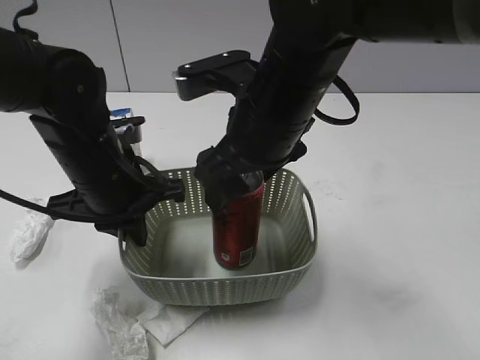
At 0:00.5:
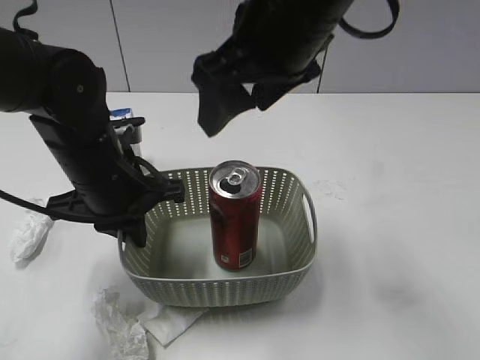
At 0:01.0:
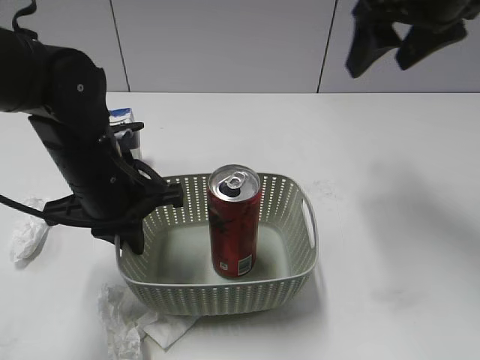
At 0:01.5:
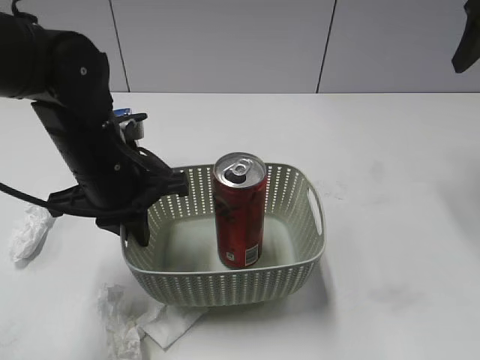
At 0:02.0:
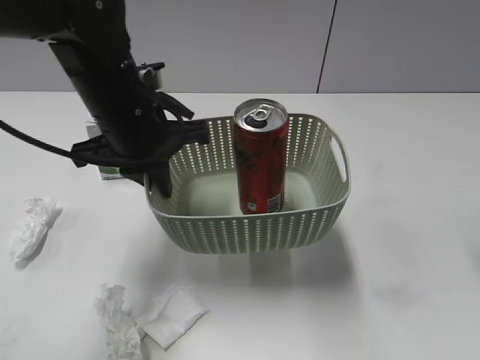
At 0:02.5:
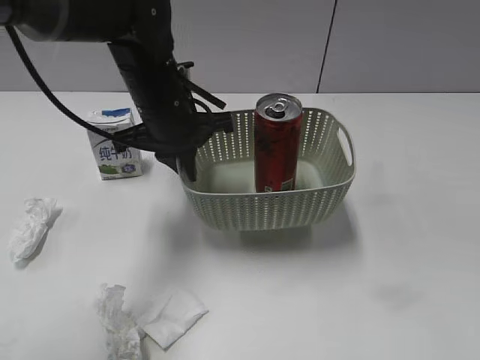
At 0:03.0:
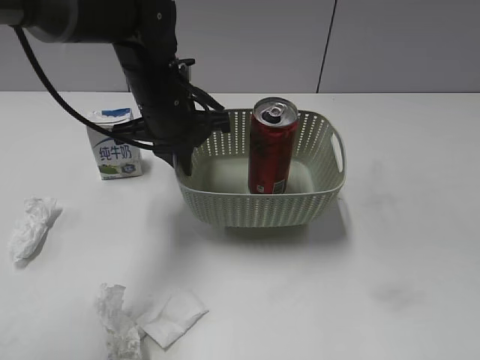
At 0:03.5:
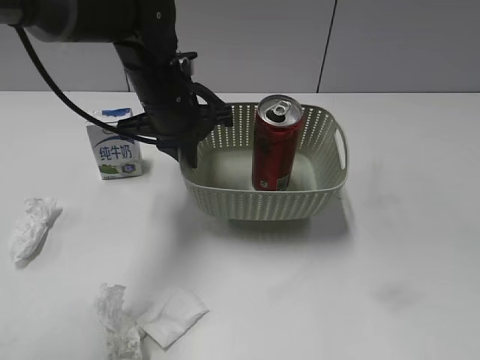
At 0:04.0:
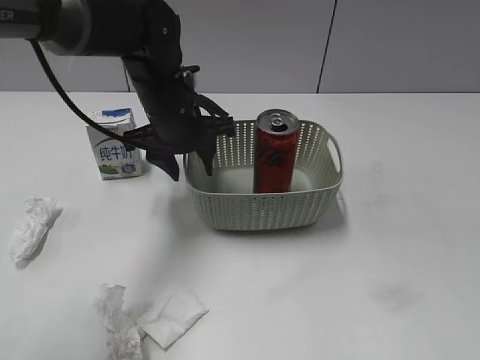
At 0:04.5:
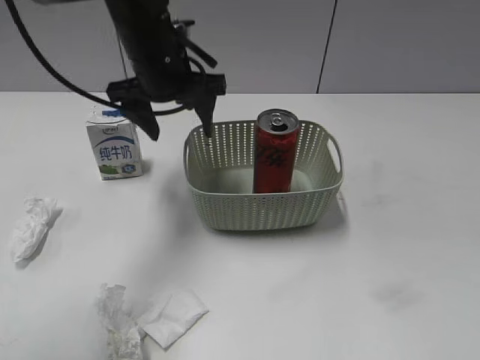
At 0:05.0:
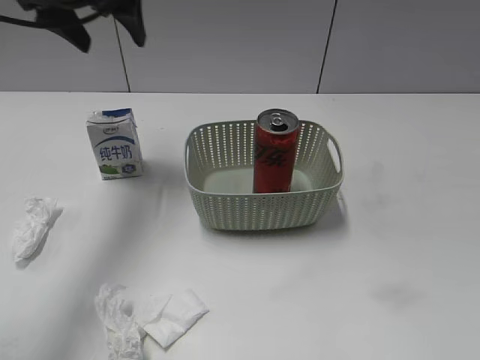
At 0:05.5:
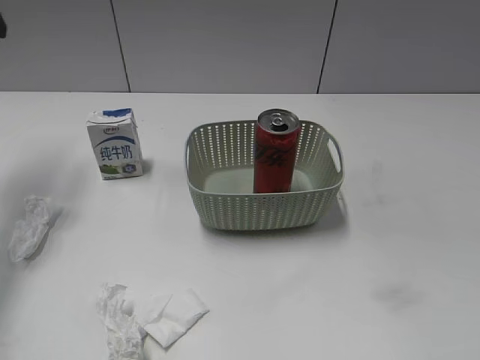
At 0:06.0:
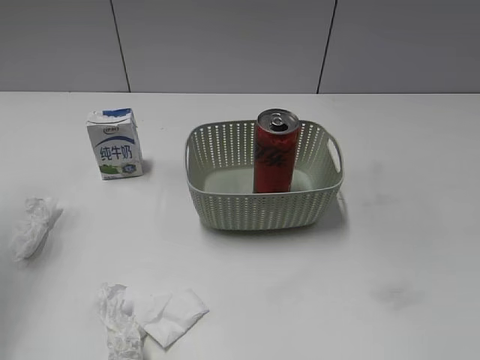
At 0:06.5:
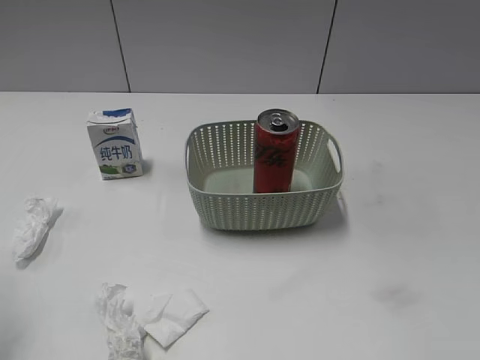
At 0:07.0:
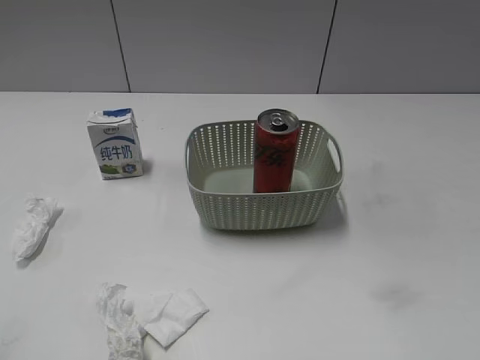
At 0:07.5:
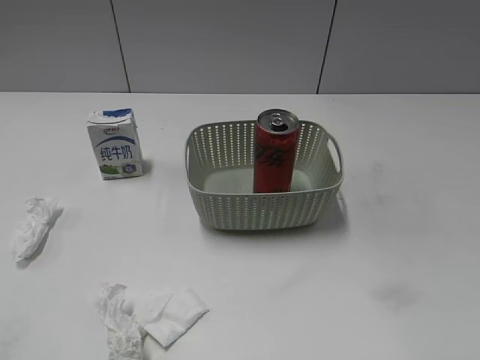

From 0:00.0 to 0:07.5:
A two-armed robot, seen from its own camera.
Step, from 0:00.5 to 0:03.5: Place the basket on the table with left gripper.
From 0:00.0 to 0:02.0: The left gripper goes about 5 cm upward; the right gripper shifts about 25 cm to the right.
From 0:02.0 to 0:04.0: The left gripper is displaced forward by about 5 cm, and opens its fingers, while the right gripper moves backward, some 25 cm.
From 0:04.0 to 0:05.5: The left gripper shifts roughly 30 cm to the left and upward, and opens.
From 0:05.5 to 0:07.5: The left gripper is displaced backward by about 35 cm.

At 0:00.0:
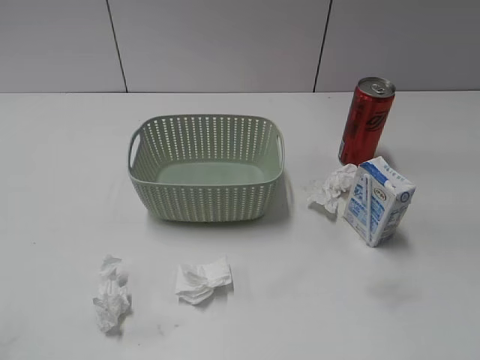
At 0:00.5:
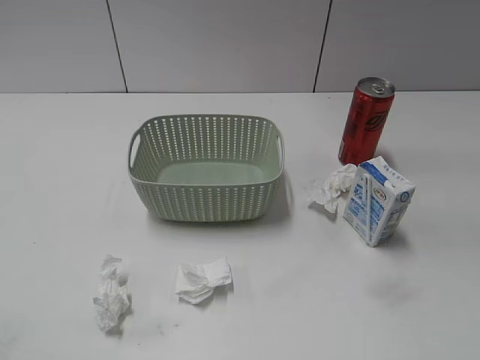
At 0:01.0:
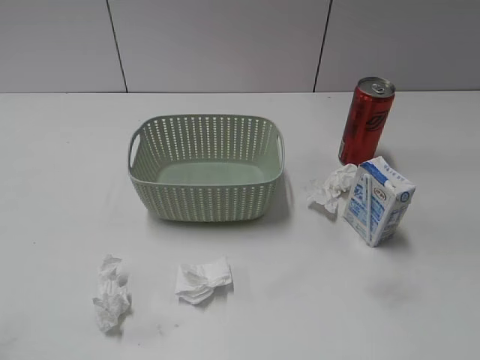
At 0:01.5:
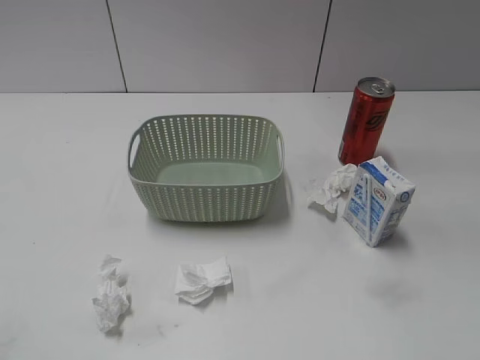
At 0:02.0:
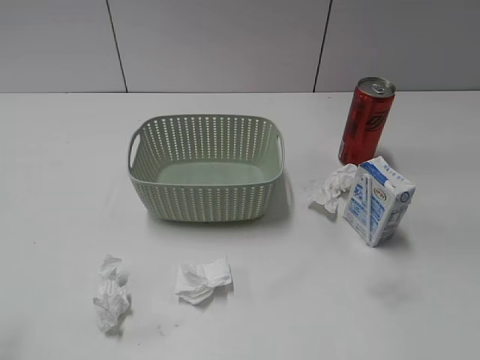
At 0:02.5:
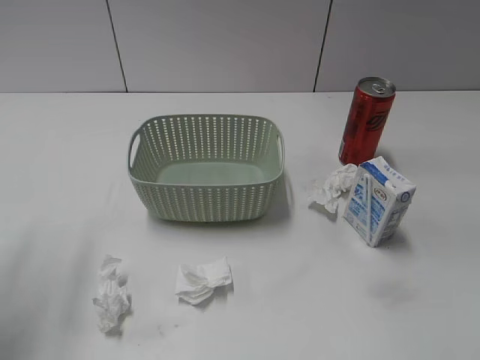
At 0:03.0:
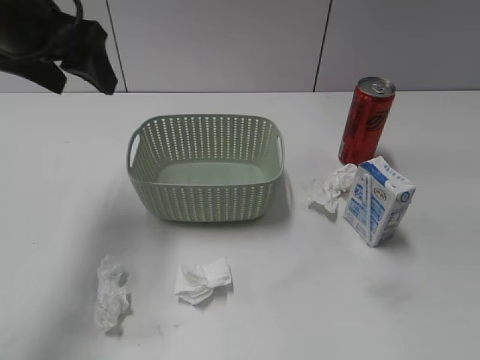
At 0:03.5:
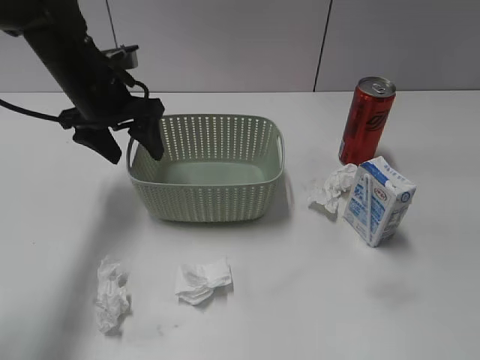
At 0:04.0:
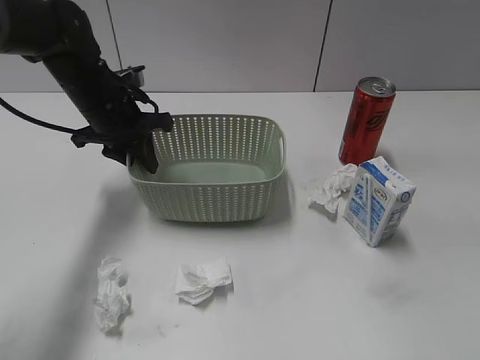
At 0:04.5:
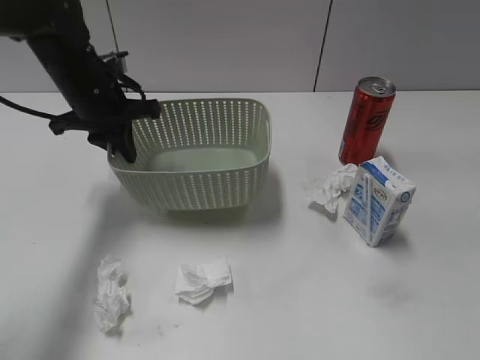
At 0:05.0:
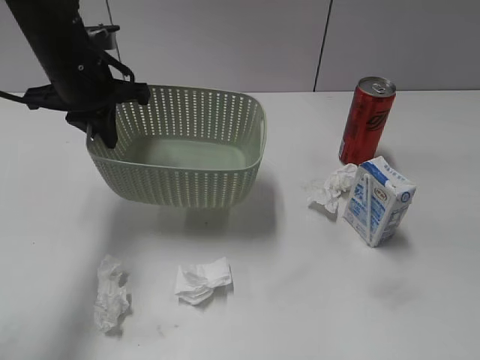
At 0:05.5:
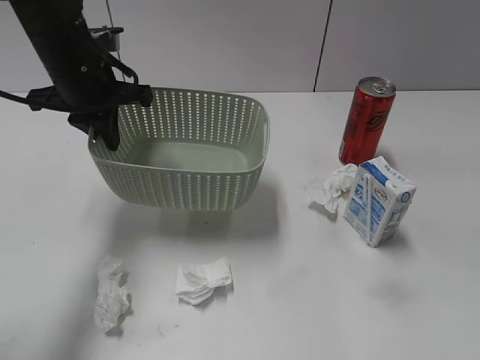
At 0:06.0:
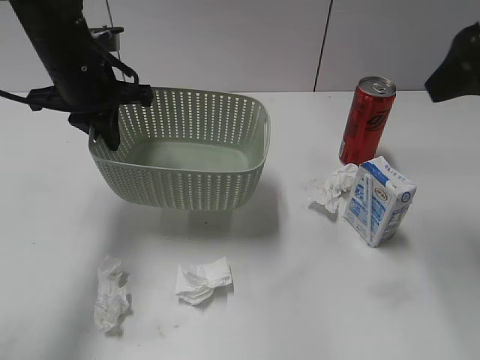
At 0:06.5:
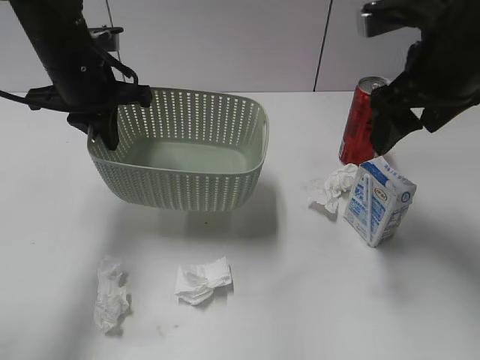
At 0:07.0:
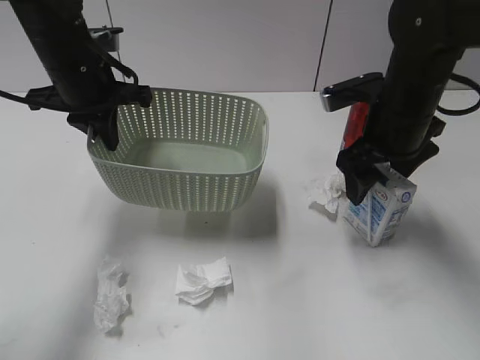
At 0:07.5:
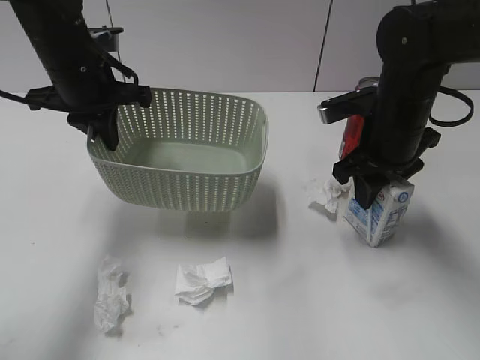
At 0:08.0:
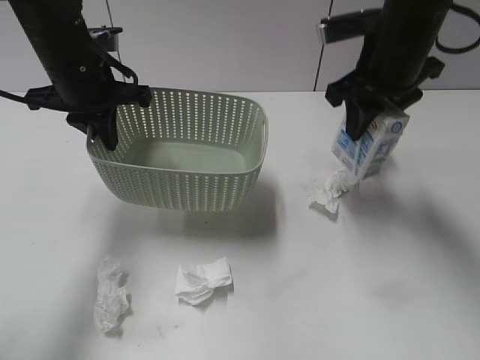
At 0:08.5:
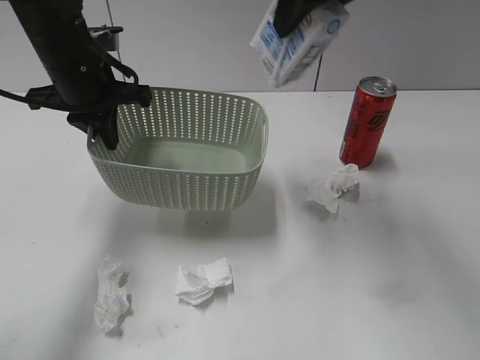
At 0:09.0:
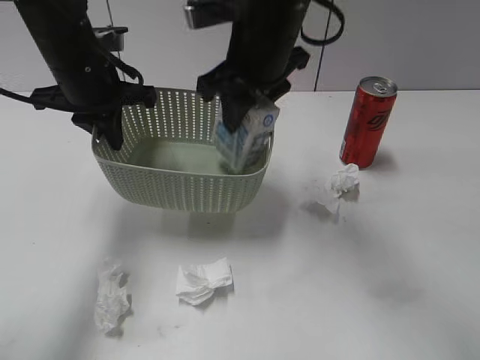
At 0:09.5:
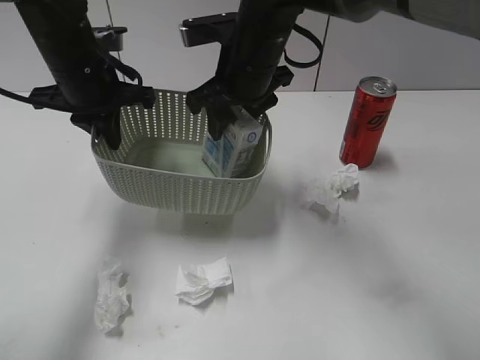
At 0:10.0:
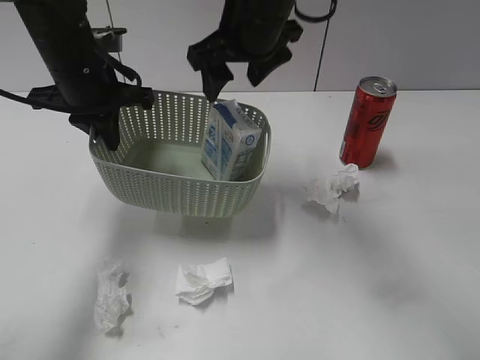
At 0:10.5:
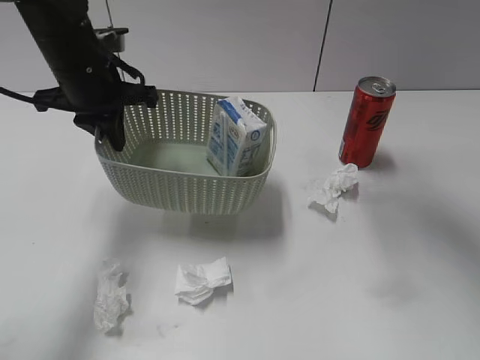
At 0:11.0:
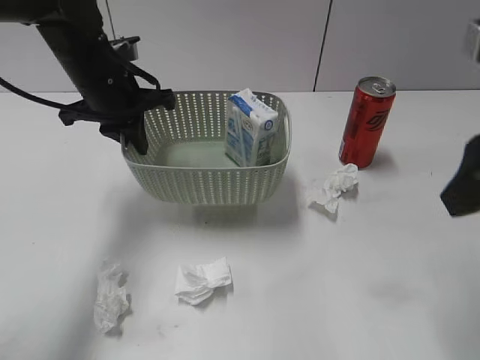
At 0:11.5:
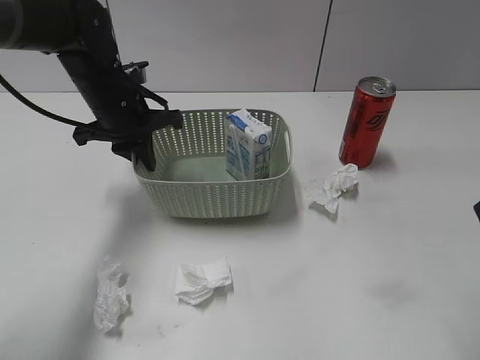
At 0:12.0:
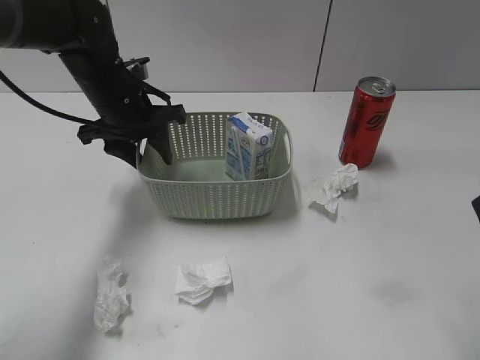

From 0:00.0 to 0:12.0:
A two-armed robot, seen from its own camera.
Step, from 0:03.0 to 0:04.0: Grasp the basket with left gripper.
Step, from 0:04.5 to 0:05.0: Lift the basket with left gripper.
Step, from 0:05.5 to 0:07.0: Grasp the milk with right gripper.
Step, from 0:07.5 to 0:10.0: Place the milk in the basket with right gripper.
From 0:02.0 to 0:04.0: The left gripper goes roughly 40 cm forward.
From 0:04.0 to 0:06.0: The left gripper travels upward by some 5 cm, and closes, while the right gripper moves forward, roughly 25 cm, and opens.
From 0:06.0 to 0:08.0: The right gripper is displaced forward, downward and to the left by about 20 cm, and closes its fingers.
From 0:08.0 to 0:10.0: The right gripper moves to the left, some 15 cm, and opens.
From 0:10.0 to 0:12.0: The right gripper travels backward and to the right by about 35 cm. The left gripper travels downward by about 5 cm.

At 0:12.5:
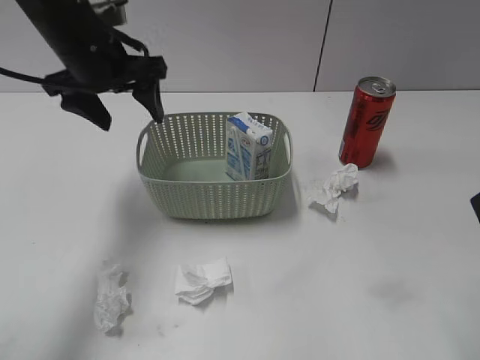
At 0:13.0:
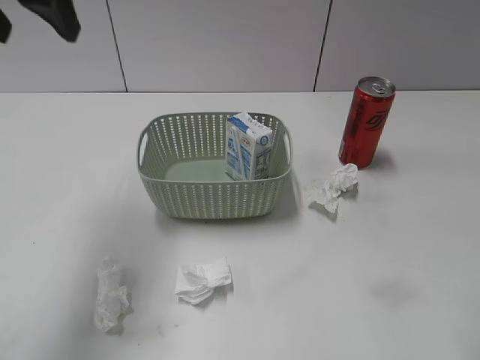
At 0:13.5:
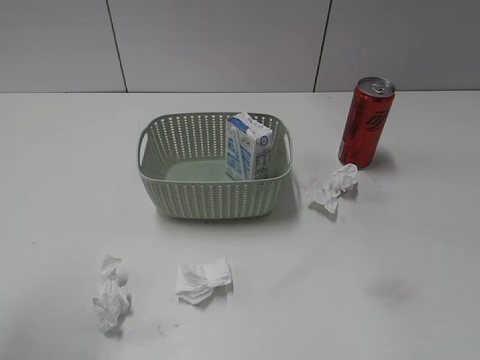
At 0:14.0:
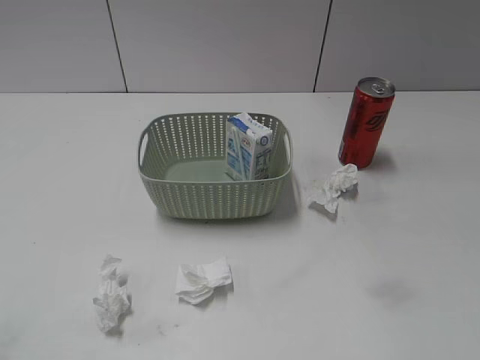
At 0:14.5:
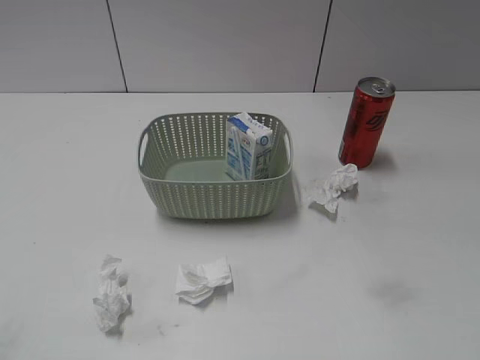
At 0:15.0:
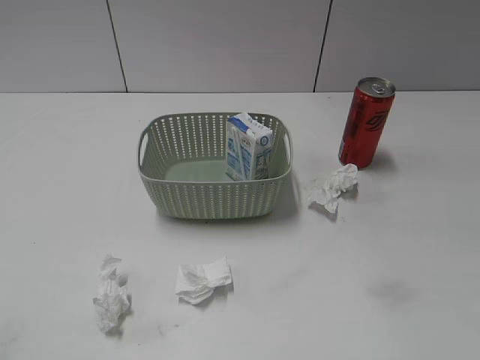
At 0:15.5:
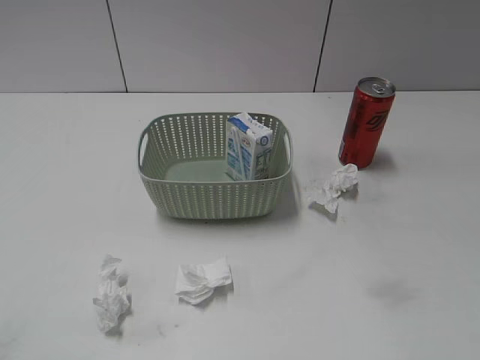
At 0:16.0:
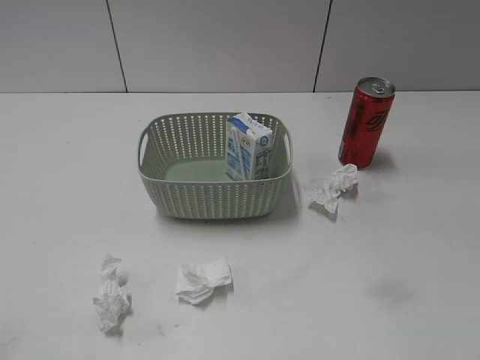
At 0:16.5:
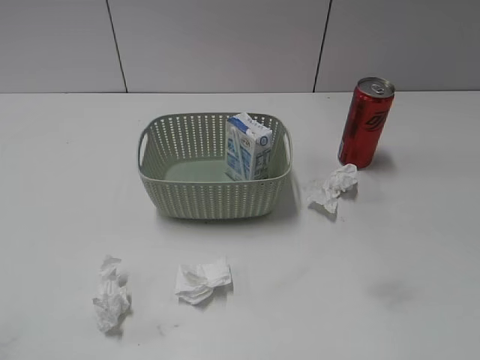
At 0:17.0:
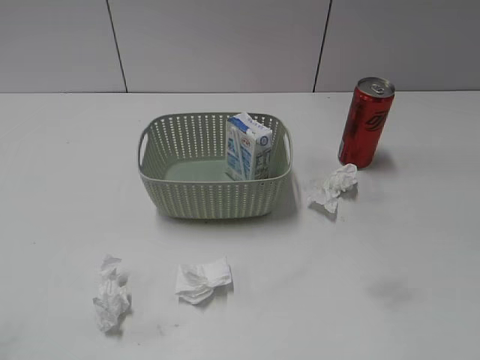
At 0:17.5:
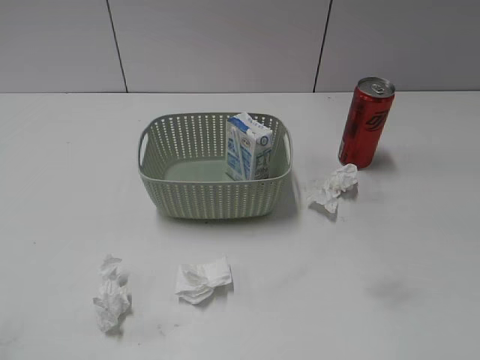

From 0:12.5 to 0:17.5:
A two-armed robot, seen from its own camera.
From 0:12.5 to 0:15.0: The left gripper is displaced backward and to the left by roughly 40 cm.
